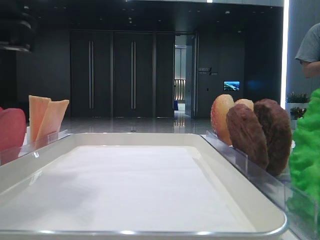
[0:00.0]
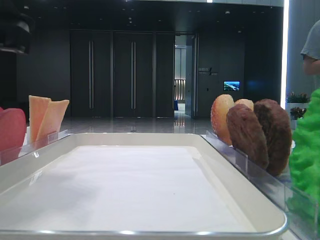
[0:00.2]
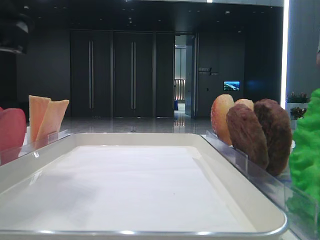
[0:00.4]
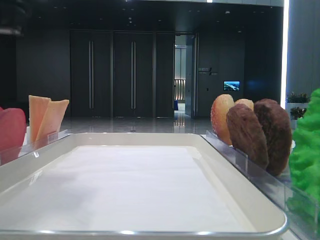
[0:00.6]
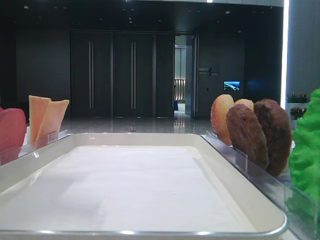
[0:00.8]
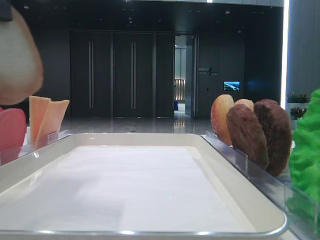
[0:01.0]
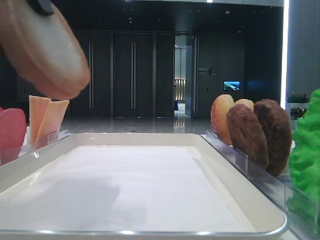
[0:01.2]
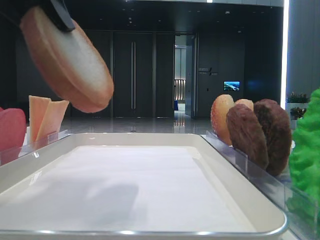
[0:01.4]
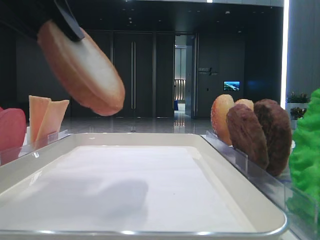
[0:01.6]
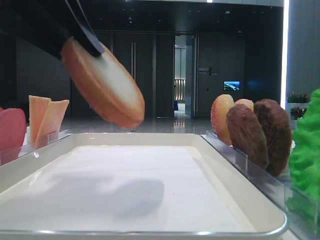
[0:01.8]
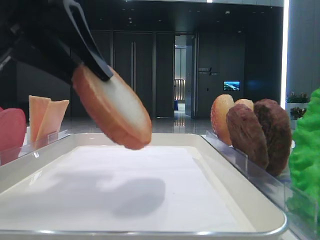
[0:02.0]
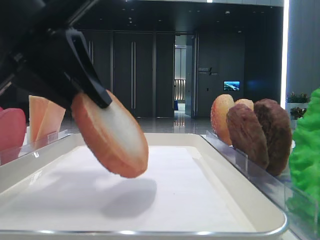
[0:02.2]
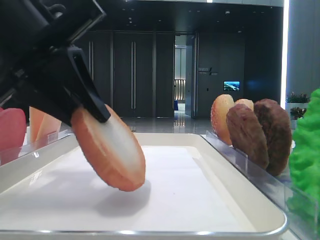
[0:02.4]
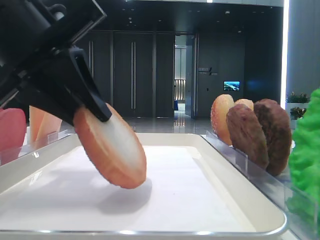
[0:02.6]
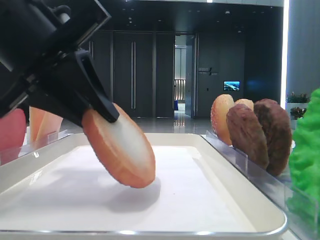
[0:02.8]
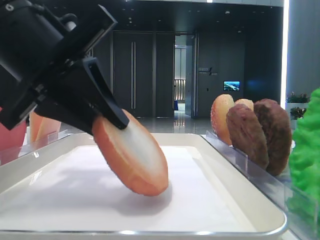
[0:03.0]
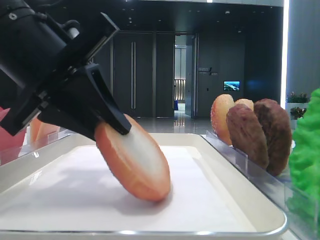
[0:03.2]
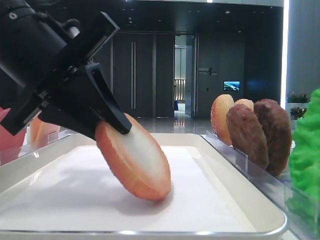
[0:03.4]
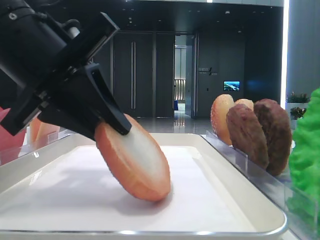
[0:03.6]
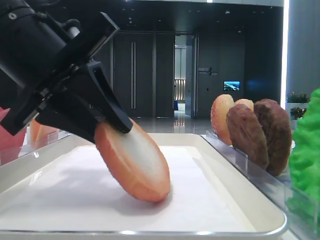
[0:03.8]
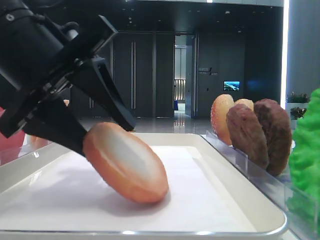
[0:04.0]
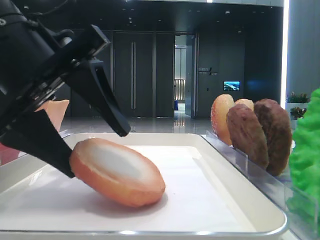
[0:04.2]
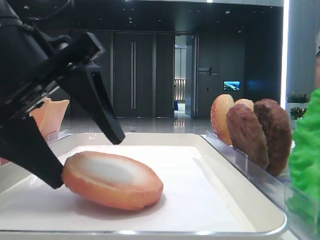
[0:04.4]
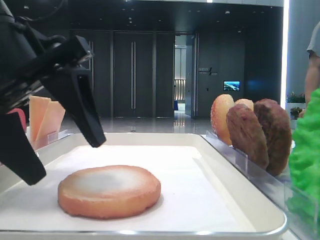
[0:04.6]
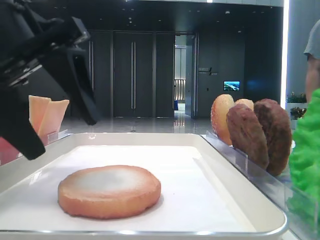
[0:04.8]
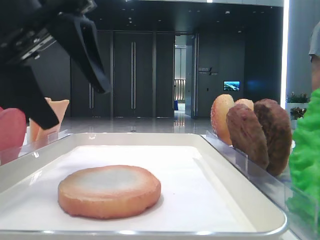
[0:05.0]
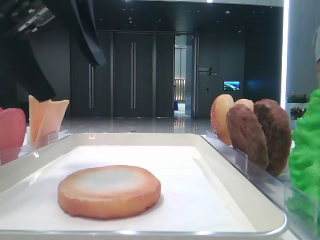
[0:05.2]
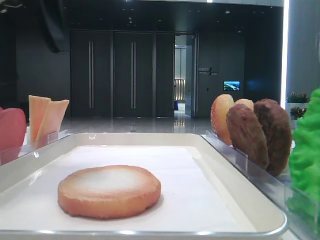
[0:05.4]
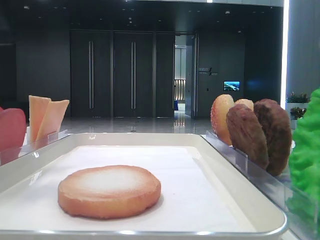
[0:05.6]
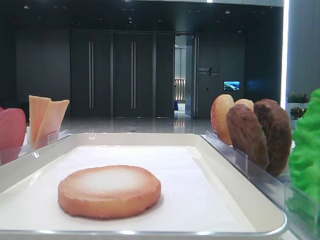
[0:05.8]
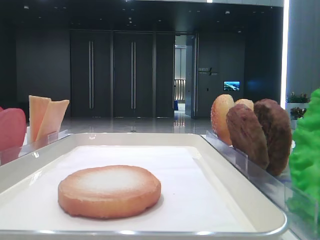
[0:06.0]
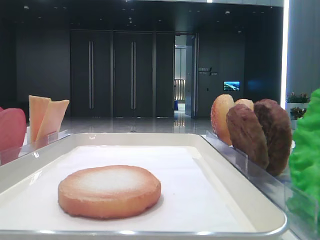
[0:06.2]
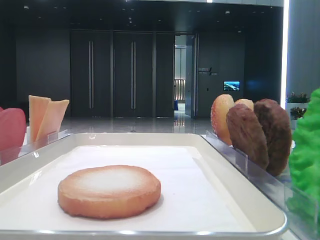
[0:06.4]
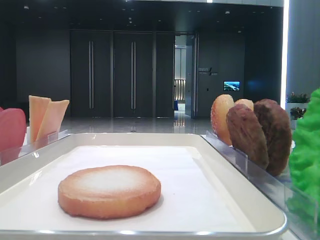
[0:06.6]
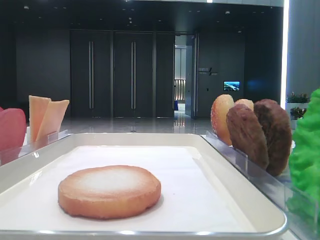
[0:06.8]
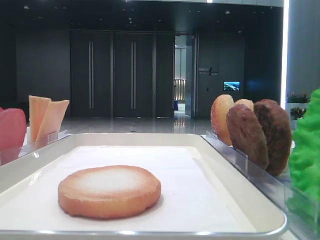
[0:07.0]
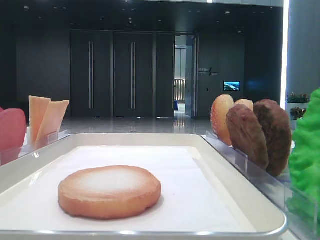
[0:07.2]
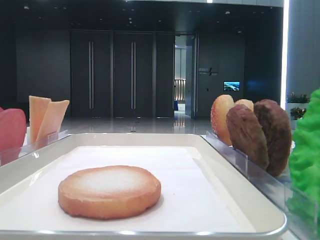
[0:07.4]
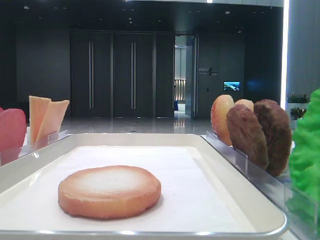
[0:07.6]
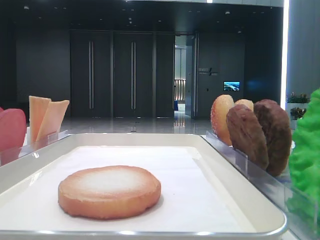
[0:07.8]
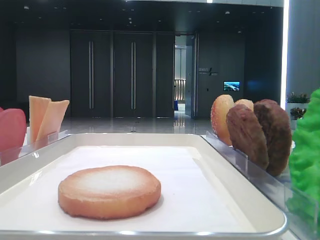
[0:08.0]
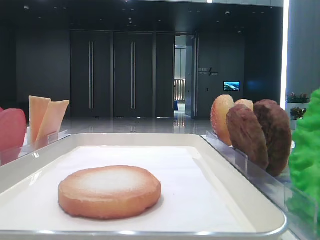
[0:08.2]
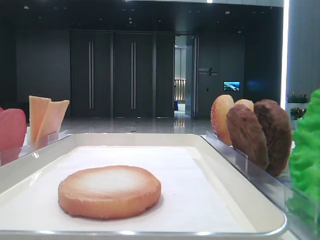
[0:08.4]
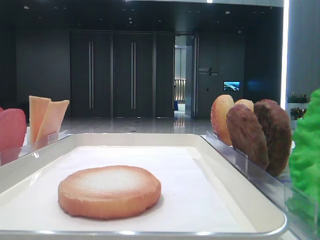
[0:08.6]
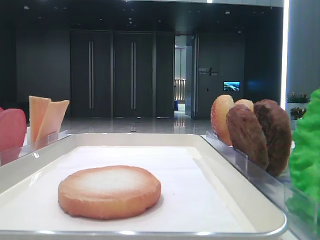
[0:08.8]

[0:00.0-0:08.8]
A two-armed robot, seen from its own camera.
Step, 0:00.6 to 0:04.6: Place the bread on the tray with the left hand.
0:01.4 to 0:03.0: The left gripper travels downward by approximately 10 cm.
0:03.0 to 0:04.4: The left gripper opens.
0:04.4 to 0:05.8: The left gripper moves upward and to the left, some 20 cm.

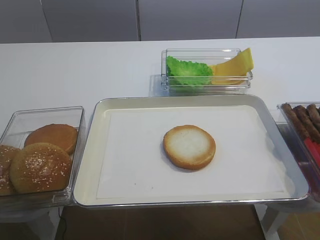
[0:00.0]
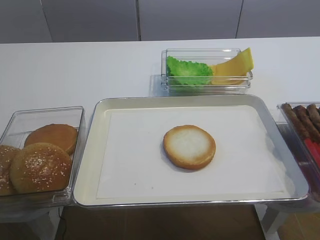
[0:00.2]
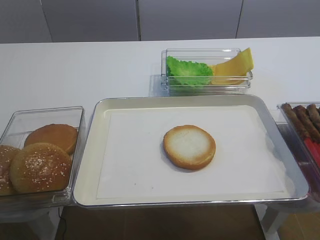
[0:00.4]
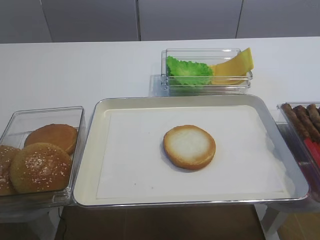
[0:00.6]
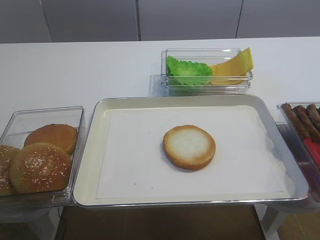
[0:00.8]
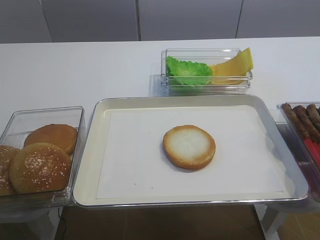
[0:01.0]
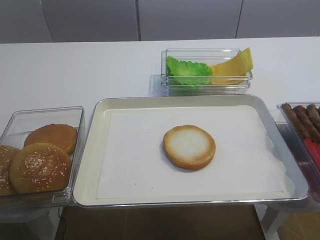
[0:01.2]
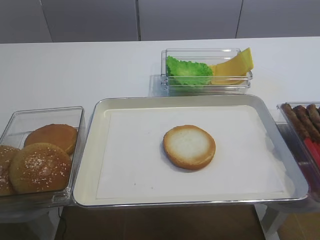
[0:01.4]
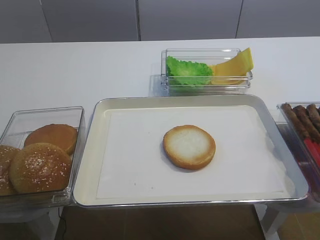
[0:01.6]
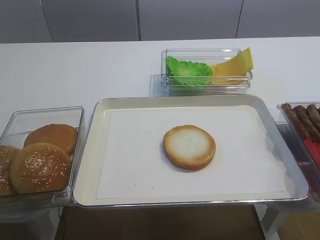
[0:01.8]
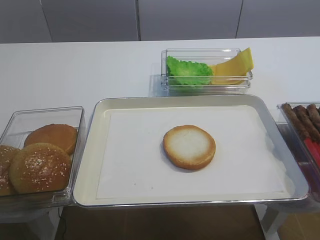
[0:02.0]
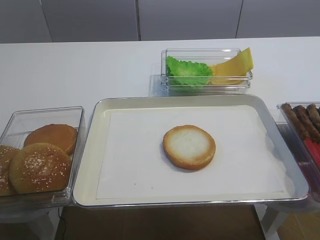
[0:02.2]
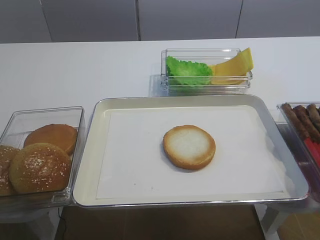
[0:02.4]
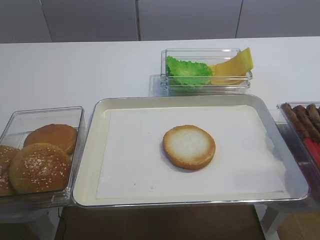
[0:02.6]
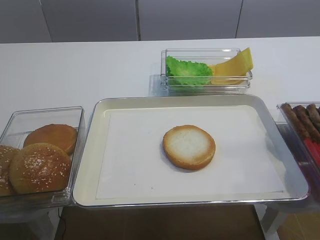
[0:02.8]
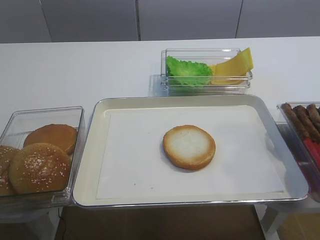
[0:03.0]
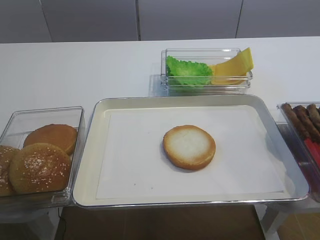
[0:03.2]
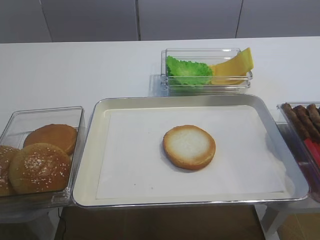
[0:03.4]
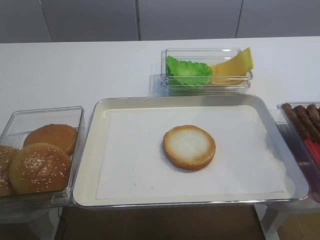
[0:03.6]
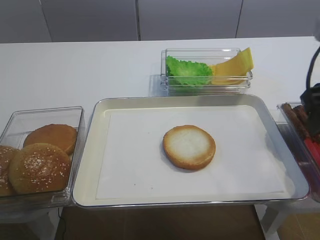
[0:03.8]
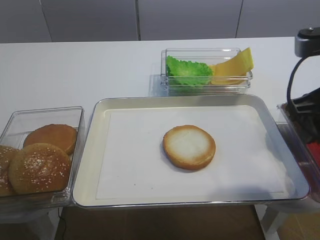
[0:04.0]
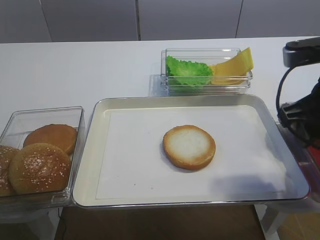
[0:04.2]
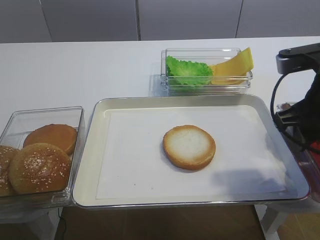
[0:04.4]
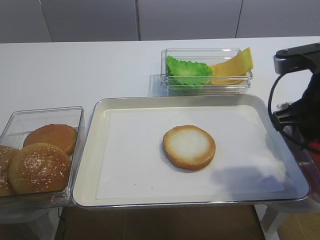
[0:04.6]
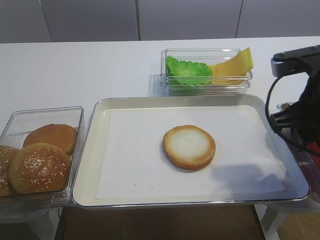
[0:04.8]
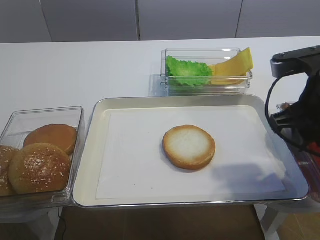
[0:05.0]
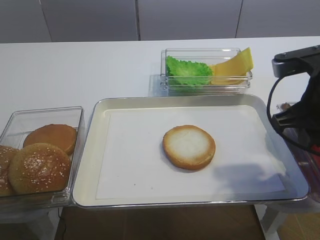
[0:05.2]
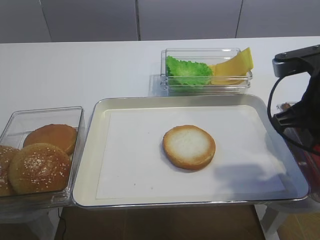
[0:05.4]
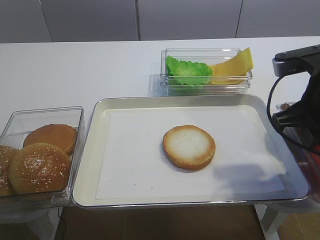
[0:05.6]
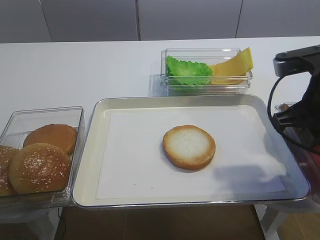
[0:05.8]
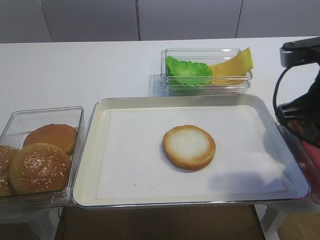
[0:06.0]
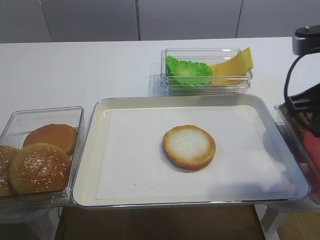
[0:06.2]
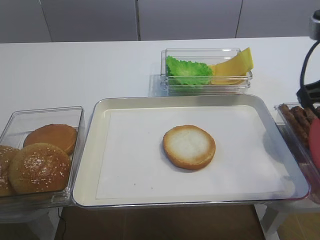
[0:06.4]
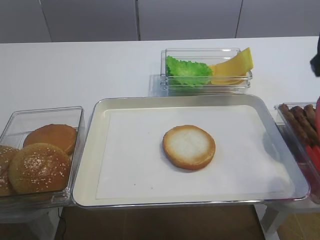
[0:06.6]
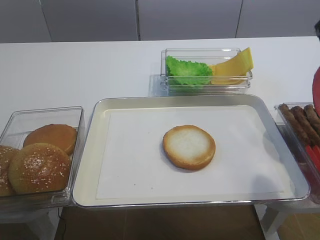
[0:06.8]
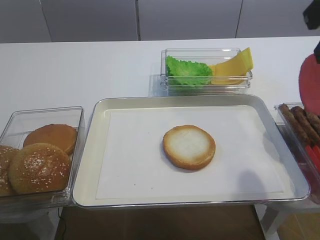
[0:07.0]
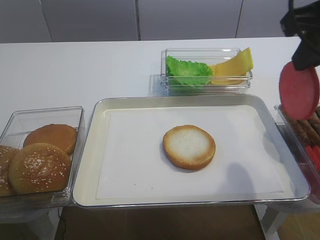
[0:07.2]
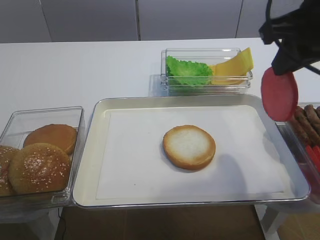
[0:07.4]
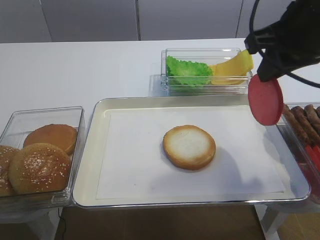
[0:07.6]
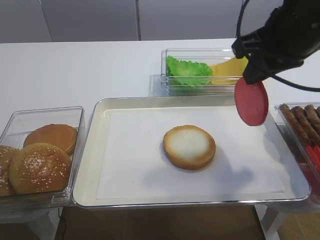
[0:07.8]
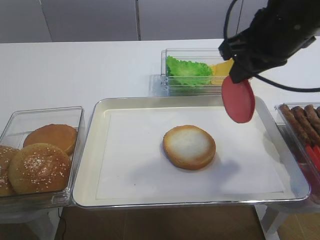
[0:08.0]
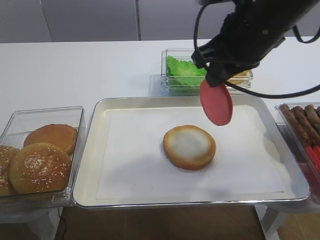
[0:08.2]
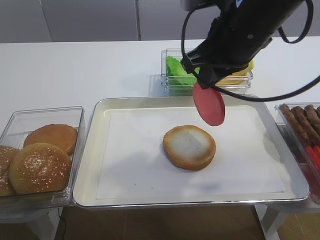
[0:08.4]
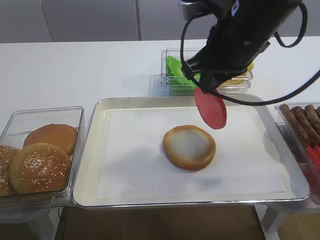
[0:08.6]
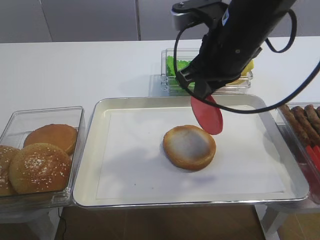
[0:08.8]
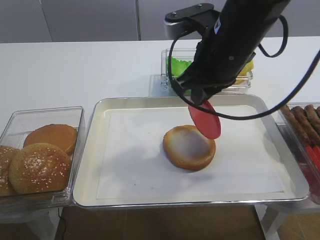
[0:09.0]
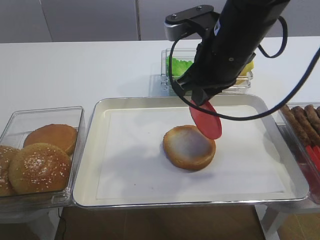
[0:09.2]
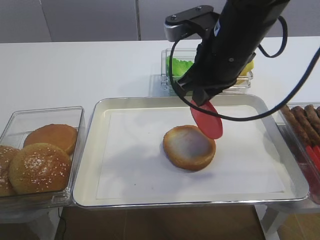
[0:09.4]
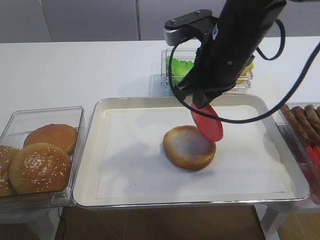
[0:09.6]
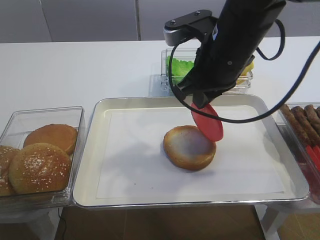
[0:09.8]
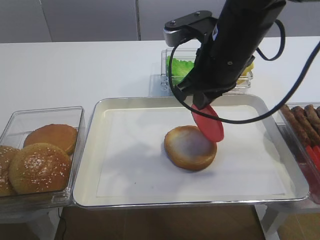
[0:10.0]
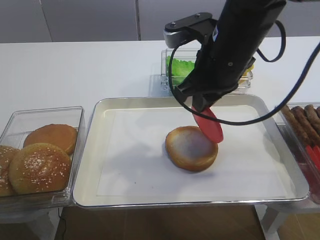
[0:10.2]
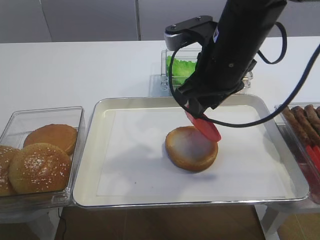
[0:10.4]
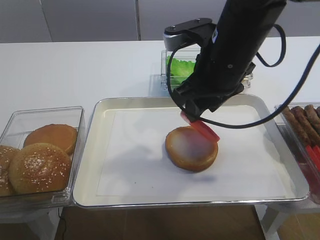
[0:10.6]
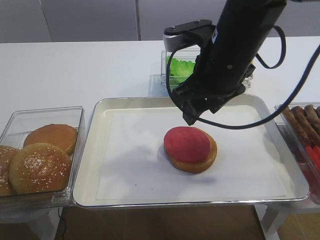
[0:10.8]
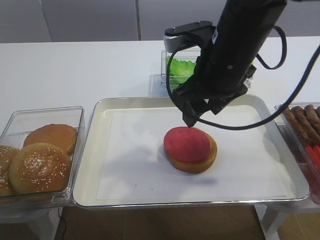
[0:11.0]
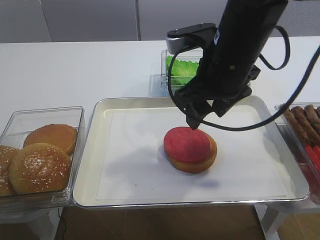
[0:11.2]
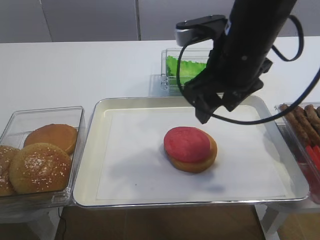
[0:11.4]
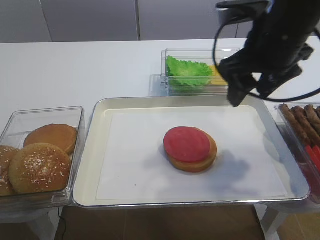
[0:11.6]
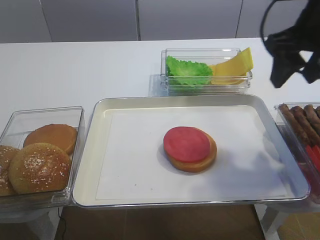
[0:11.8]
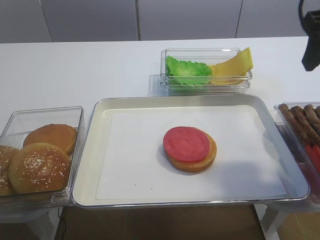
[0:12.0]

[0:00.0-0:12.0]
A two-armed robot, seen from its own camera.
Step, 0:00.0 to 0:06.2: Pick up the tomato slice with the right gripper.
Step, 0:06.4 to 0:11.0: Place the tomato slice on the bread slice with the right gripper.
0:03.0 to 0:04.4: The right gripper moves forward and downward, roughly 15 cm.
0:04.4 to 0:06.0: The right gripper closes up.
0:06.0 to 0:07.6: The right gripper travels upward by approximately 10 cm.
0:07.6 to 0:09.0: The right gripper goes about 10 cm to the left and downward.
0:09.0 to 0:10.4: The right gripper opens its fingers.
0:10.4 to 0:12.0: The right gripper goes approximately 15 cm to the right and upward, and opens up.

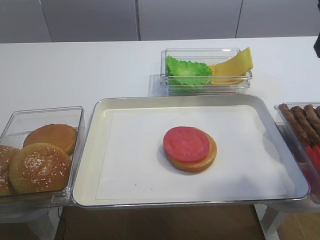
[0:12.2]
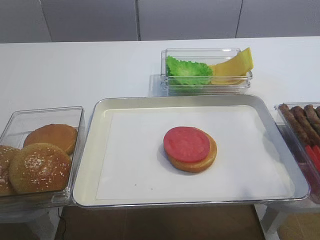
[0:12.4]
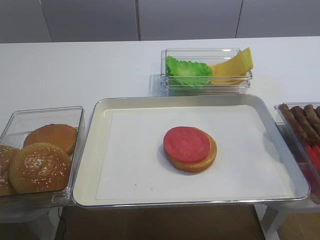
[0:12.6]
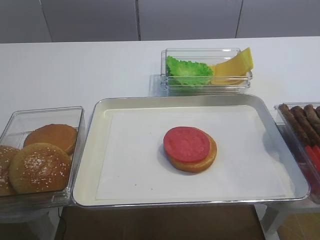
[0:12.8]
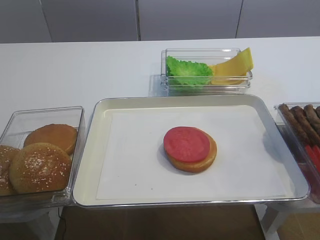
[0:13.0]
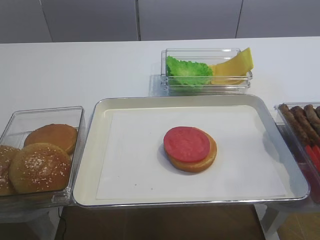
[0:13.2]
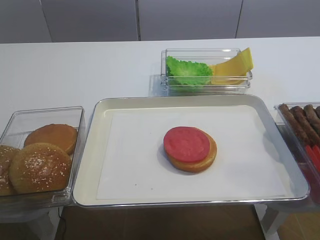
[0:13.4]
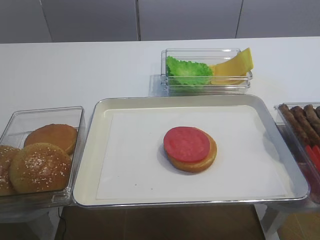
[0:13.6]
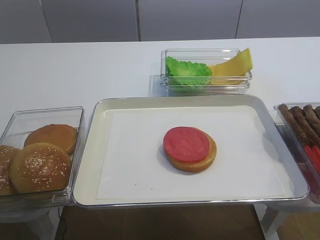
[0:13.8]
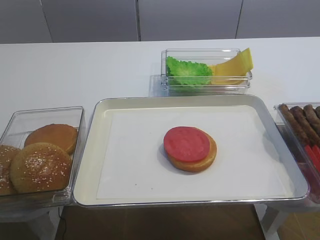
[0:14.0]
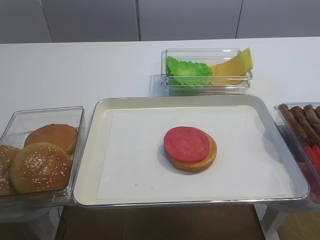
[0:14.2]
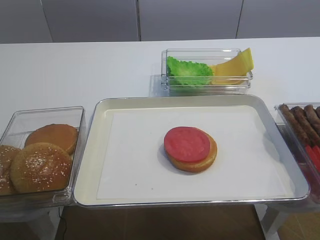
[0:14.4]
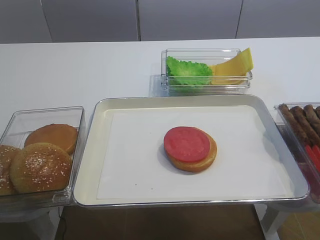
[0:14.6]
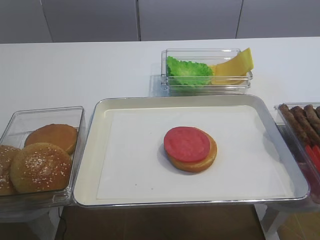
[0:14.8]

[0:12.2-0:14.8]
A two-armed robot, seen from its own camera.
0:12.2 to 0:13.4: The right gripper shifts roughly 25 cm backward.
